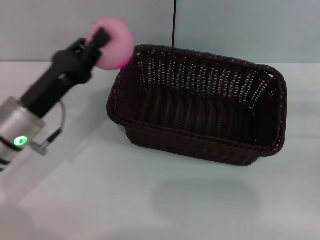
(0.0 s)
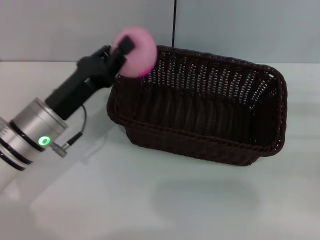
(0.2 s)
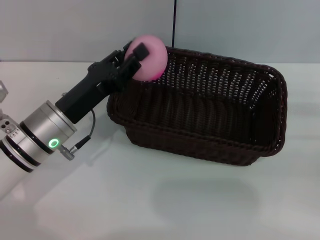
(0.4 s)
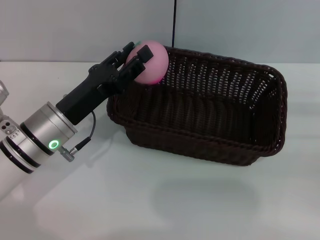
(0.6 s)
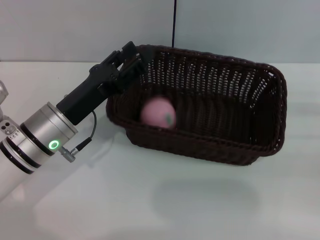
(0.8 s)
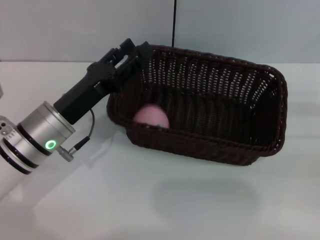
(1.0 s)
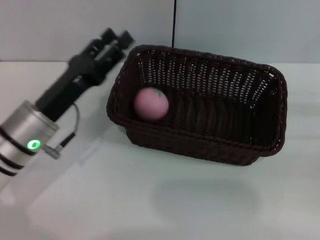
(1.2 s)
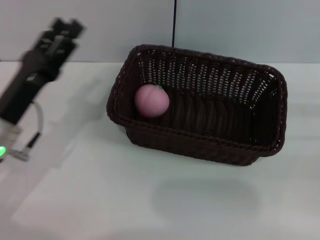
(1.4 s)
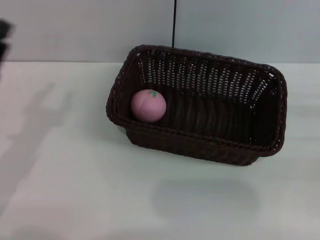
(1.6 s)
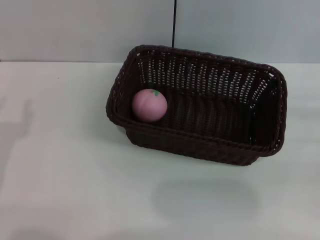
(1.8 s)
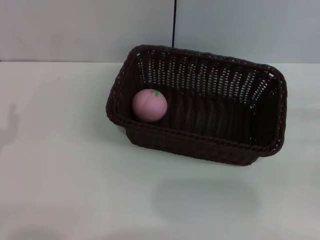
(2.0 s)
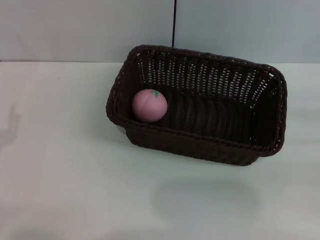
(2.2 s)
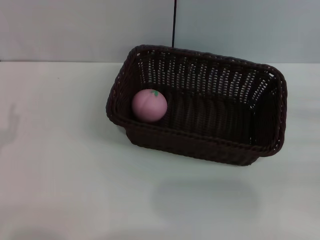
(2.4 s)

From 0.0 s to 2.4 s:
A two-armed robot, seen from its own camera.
Step, from 0.0 s to 0.8 s: Place the peach into the basket with the left gripper.
From 0.0 s to 1.2 s: The left gripper opens its fingers.
From 1.2 s to 2.4 s: The left gripper moves to the left and backward, approximately 15 cm.
